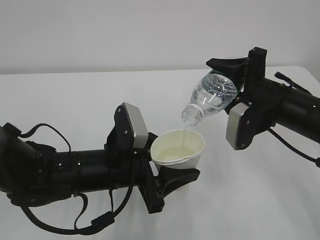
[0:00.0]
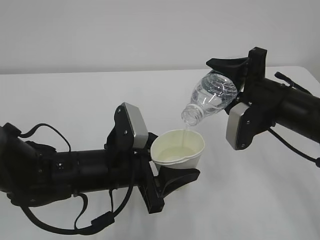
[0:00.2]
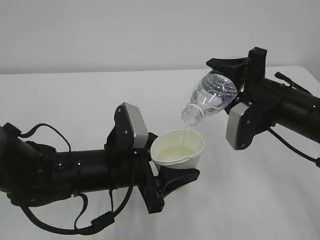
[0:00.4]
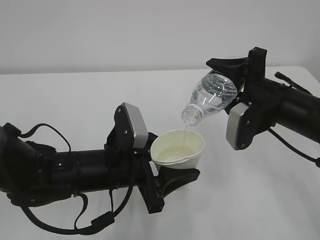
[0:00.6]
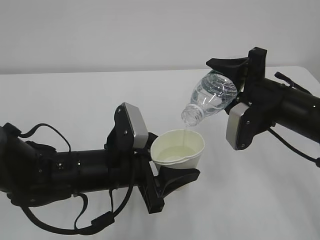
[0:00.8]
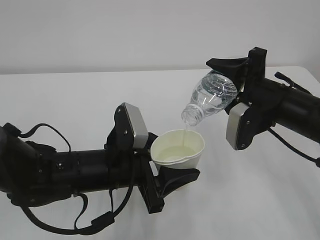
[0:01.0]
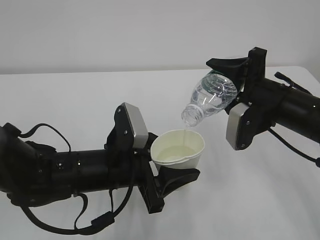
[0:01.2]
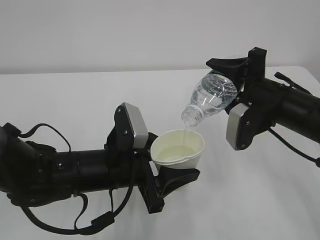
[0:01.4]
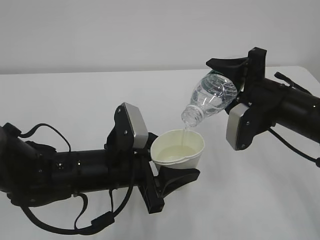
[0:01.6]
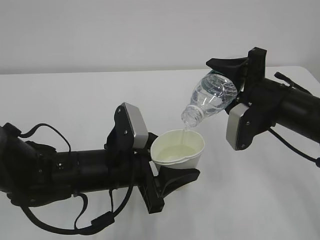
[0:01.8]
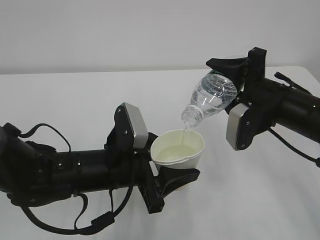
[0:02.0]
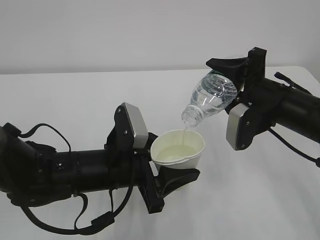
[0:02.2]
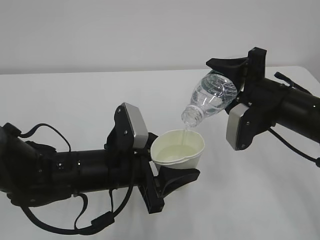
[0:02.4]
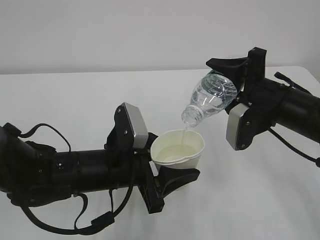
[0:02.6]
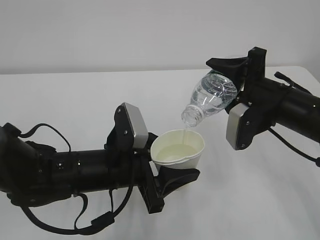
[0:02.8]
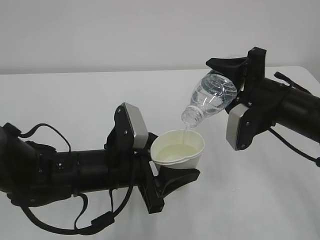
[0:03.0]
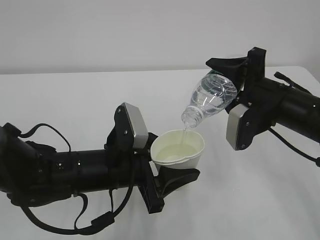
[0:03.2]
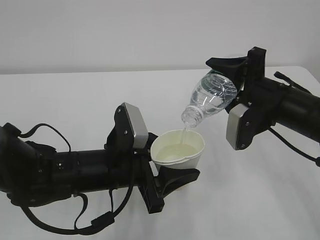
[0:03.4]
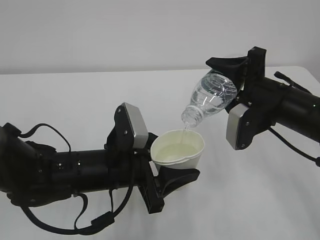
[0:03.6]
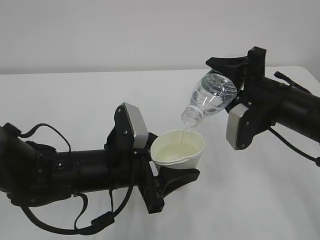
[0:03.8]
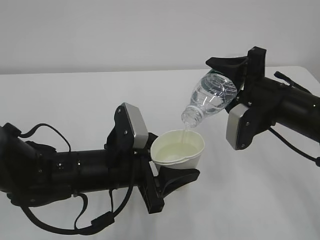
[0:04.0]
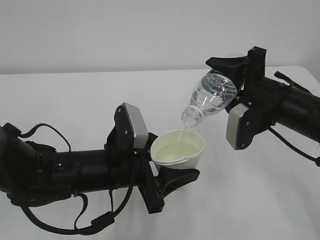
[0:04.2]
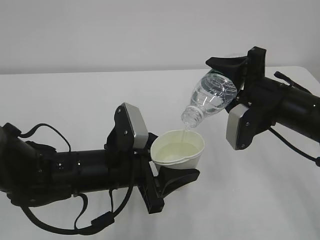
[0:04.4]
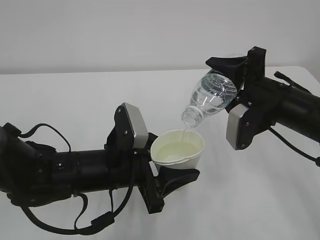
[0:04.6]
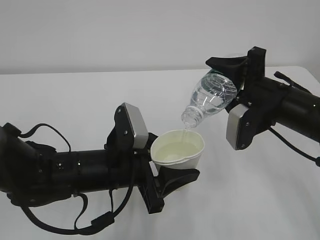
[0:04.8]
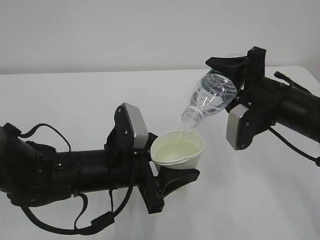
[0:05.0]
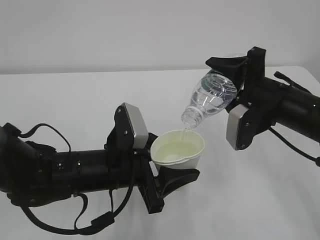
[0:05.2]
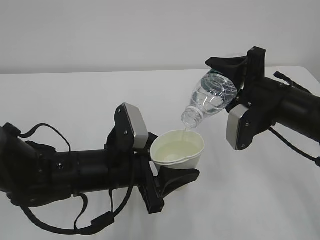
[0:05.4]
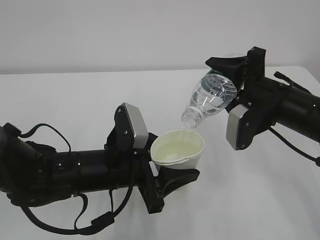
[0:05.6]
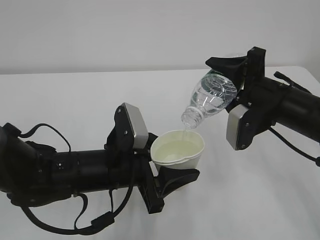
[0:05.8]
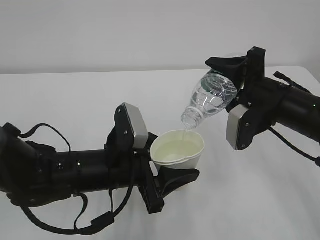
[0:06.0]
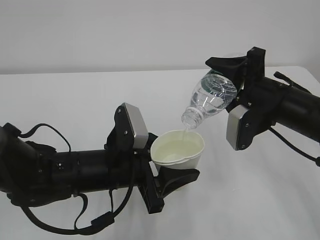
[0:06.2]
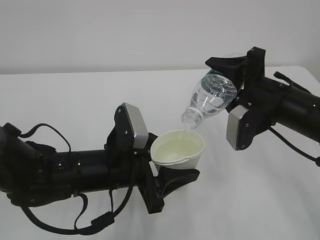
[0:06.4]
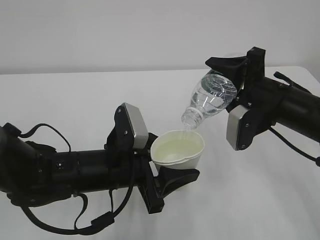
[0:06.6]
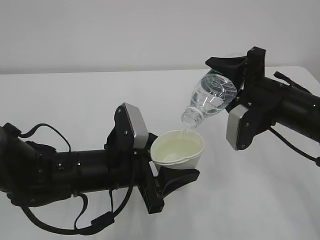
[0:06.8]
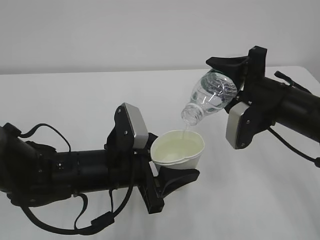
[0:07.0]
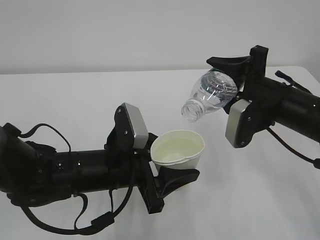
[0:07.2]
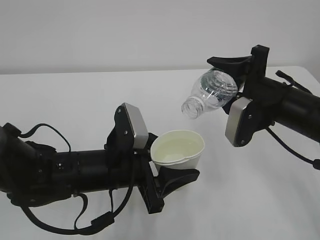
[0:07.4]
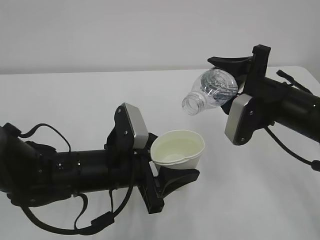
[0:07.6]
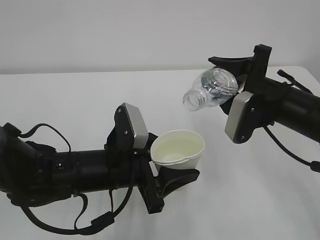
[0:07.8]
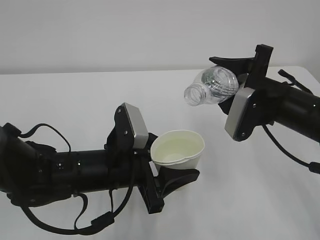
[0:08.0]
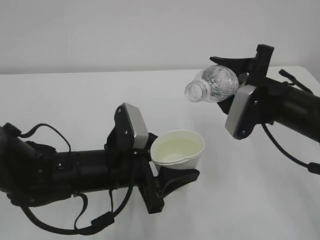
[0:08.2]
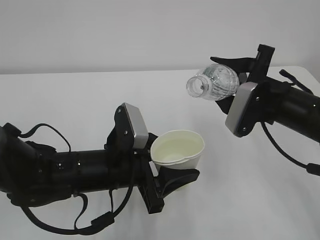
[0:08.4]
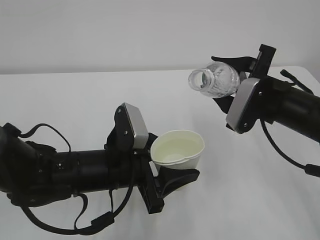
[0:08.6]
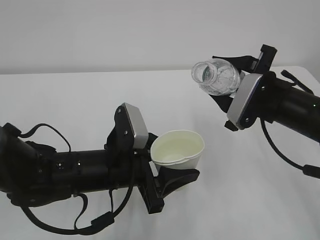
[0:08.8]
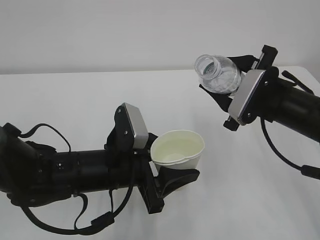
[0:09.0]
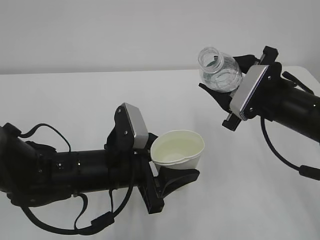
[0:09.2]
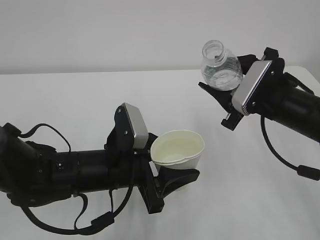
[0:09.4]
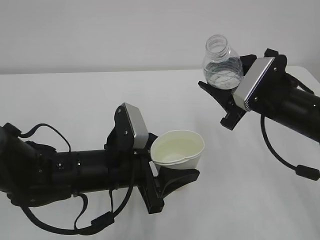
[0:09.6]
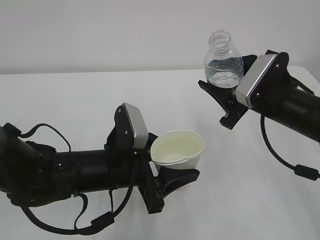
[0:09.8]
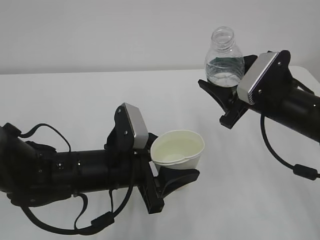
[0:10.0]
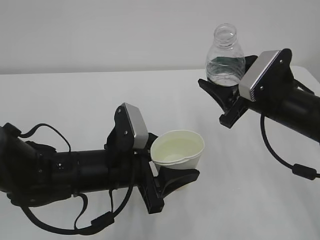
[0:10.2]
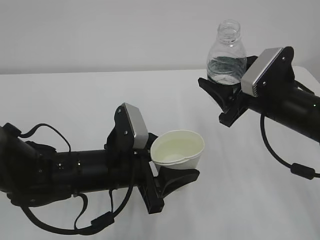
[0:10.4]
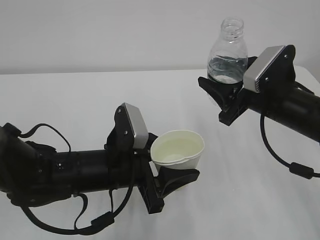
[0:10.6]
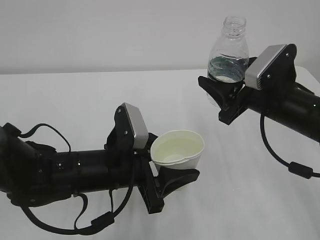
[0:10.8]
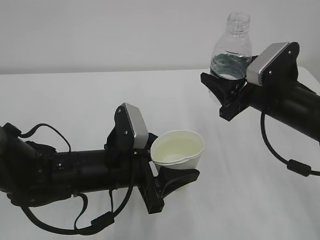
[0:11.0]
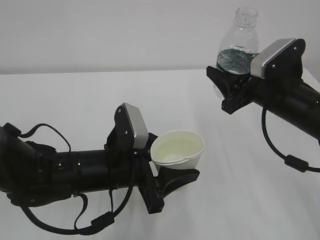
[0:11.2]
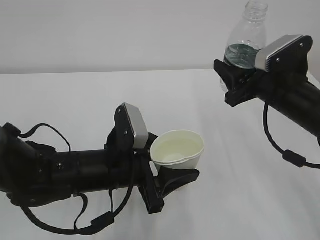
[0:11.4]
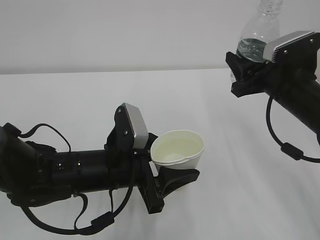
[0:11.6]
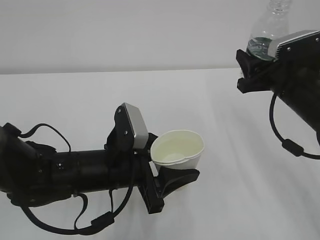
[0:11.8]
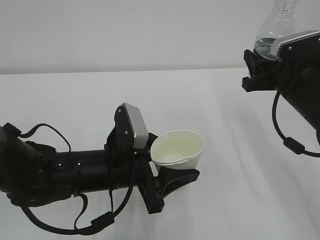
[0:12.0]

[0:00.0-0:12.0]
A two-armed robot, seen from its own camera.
0:00.0 to 0:06.0: The two grippers keep their place.
0:06.0 to 0:07.6: There are only small adjustments of the grippers.

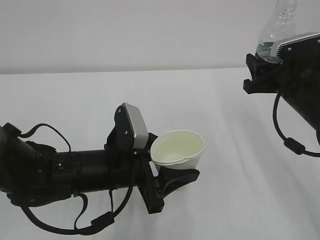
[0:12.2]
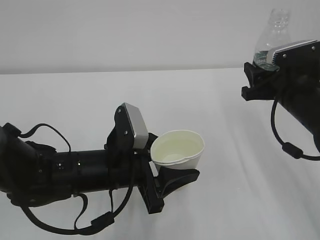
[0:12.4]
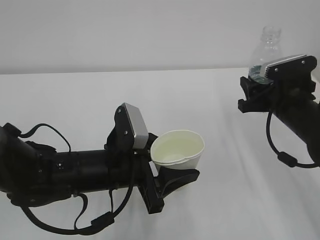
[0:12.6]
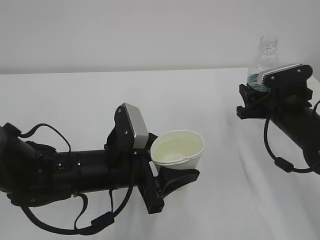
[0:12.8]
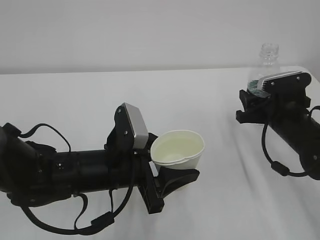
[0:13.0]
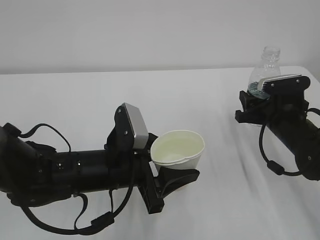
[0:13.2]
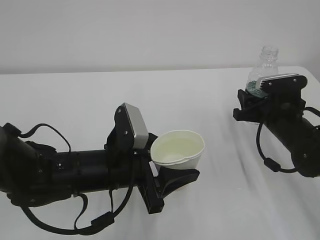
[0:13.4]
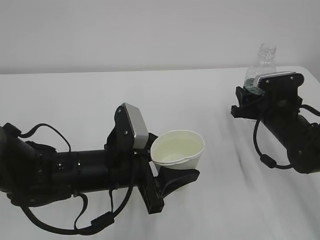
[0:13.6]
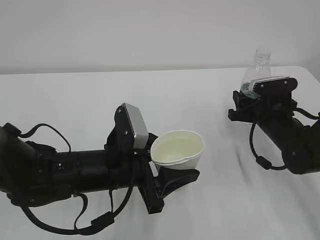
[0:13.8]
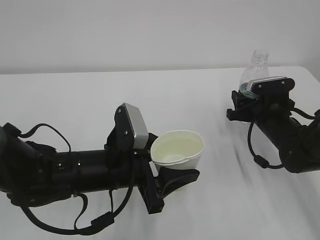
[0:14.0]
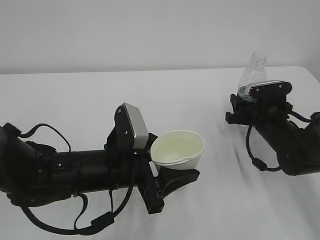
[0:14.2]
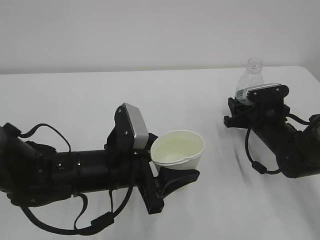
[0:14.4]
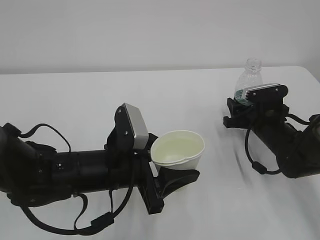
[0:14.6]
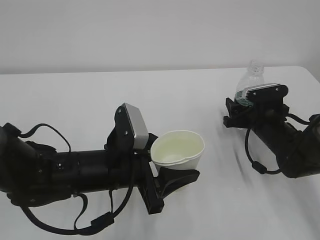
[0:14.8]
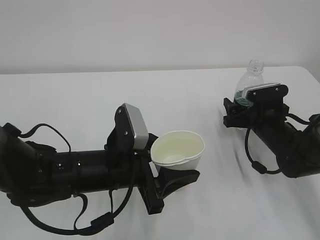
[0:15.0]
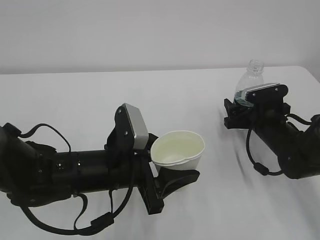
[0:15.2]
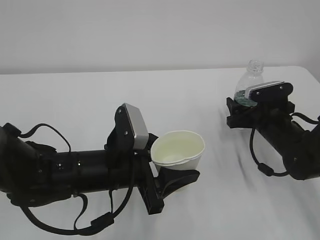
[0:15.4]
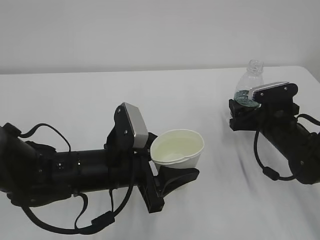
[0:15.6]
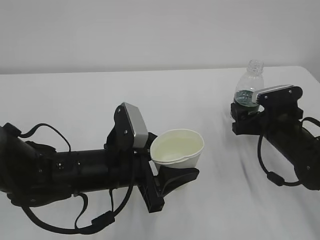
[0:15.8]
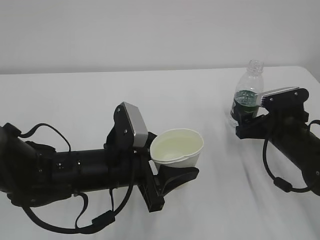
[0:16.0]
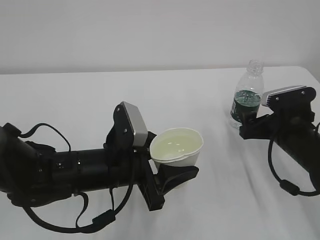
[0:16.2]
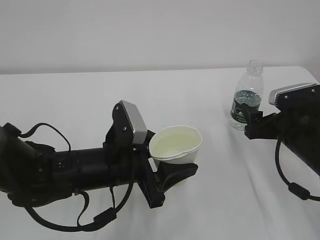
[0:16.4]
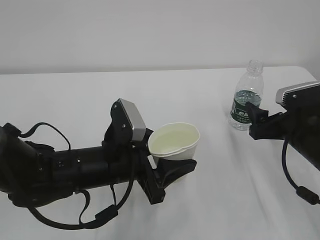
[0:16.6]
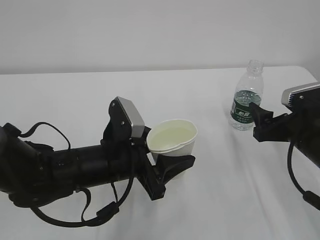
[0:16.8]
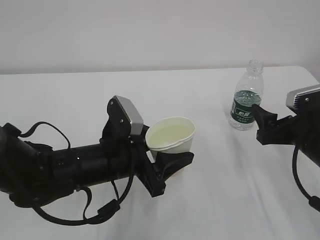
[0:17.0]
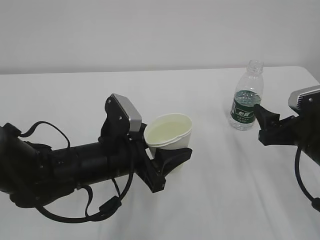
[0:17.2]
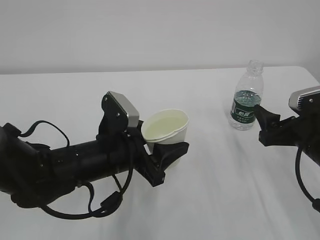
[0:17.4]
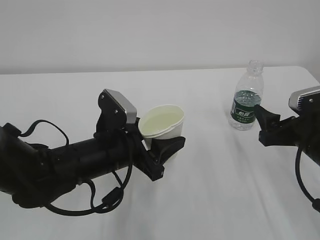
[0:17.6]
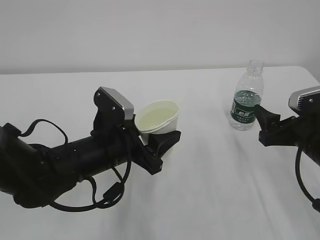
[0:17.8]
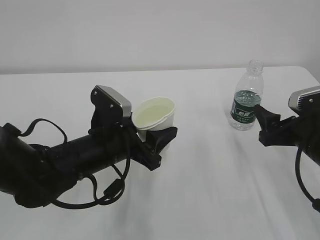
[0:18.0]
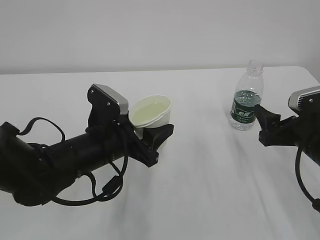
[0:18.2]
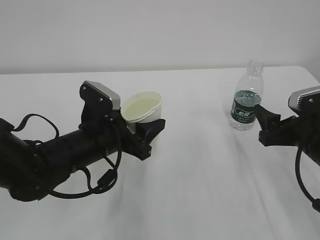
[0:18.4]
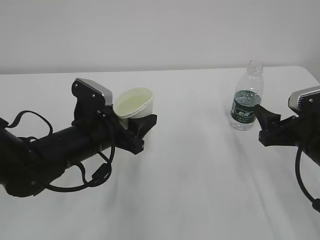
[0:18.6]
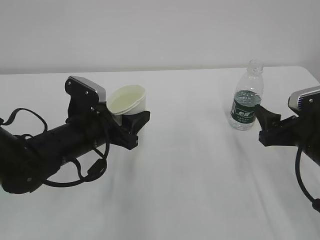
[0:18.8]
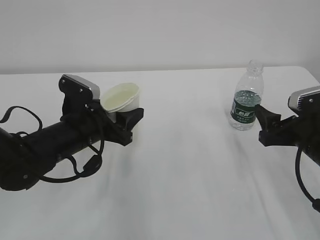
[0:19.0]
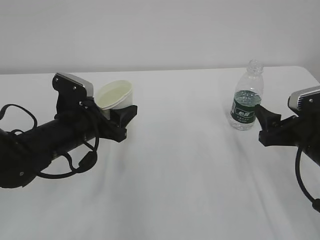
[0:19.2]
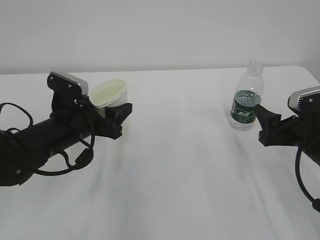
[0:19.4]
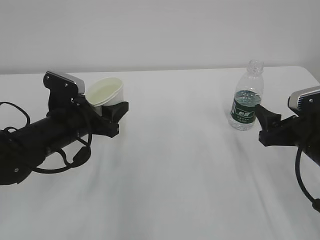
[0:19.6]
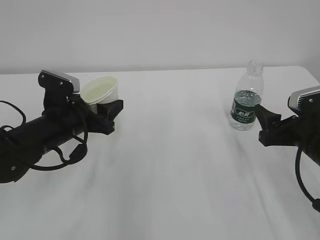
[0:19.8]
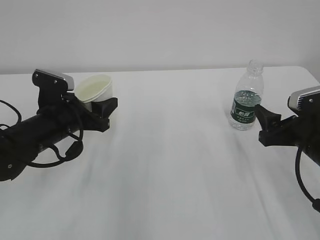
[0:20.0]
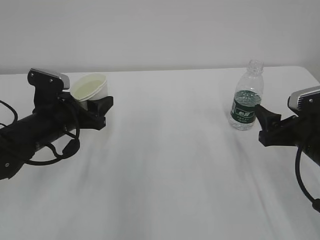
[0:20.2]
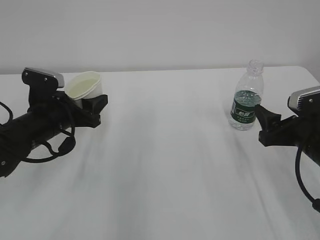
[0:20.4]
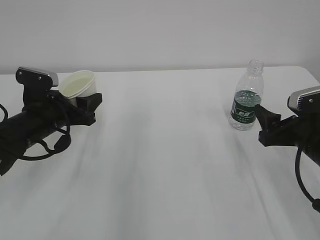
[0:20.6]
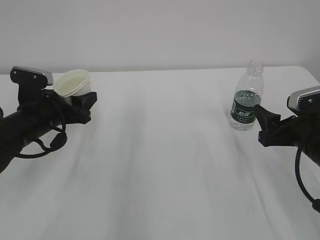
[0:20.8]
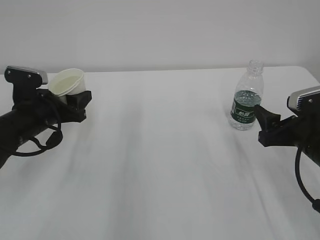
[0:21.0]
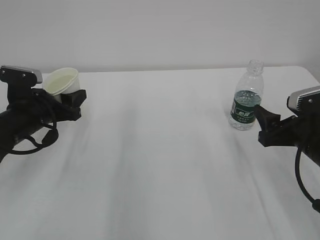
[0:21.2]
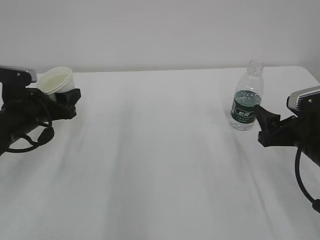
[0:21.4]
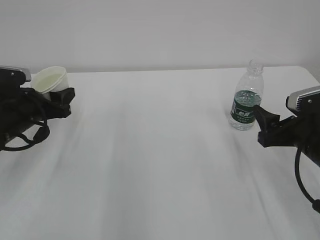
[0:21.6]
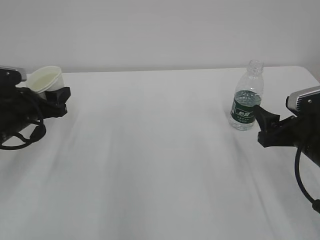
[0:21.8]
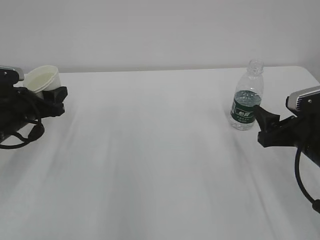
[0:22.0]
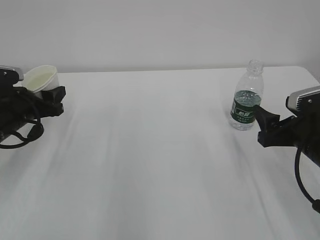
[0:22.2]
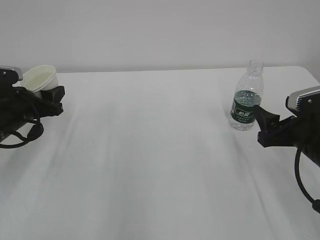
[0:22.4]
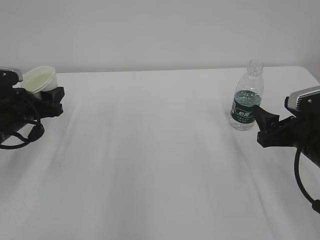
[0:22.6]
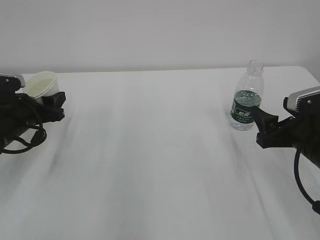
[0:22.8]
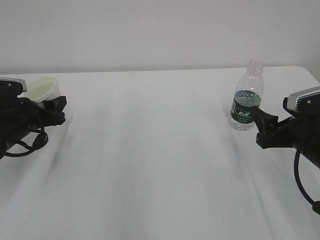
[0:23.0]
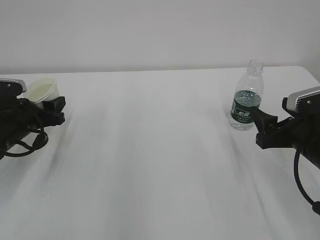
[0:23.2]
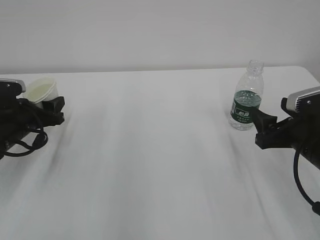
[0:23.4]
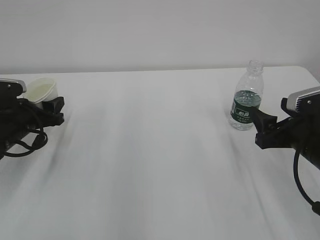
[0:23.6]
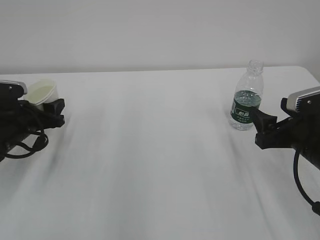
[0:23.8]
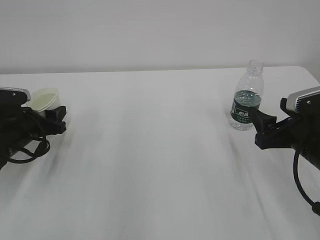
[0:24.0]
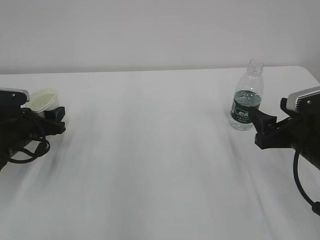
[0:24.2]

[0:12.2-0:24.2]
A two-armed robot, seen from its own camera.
0:12.2 to 0:13.8: The right gripper heads downward, covering approximately 10 cm.
0:13.8 to 0:15.2: The right gripper opens.
0:15.2 to 0:16.6: The right gripper is displaced backward and upward by some 10 cm.
0:18.2 to 0:19.8: The left gripper is displaced to the left by some 10 cm.
0:19.8 to 0:21.2: The left gripper is displaced to the left by roughly 5 cm.
0:21.2 to 0:22.6: There are only small adjustments of the grippers.
0:22.6 to 0:24.2: The grippers make only small movements.
